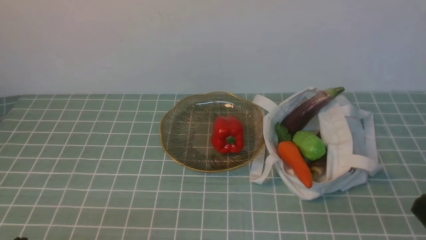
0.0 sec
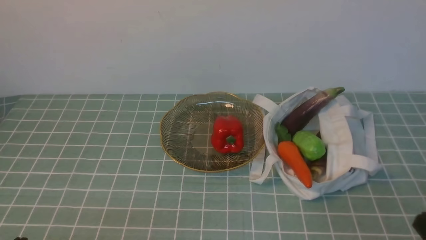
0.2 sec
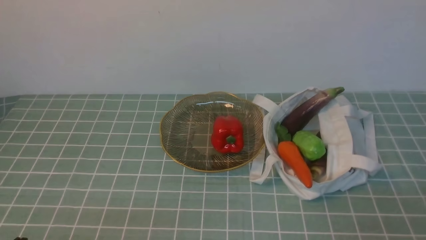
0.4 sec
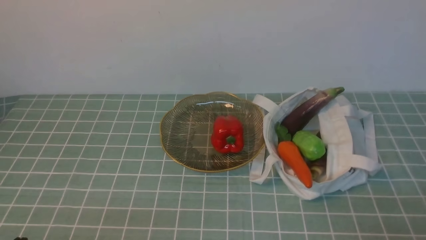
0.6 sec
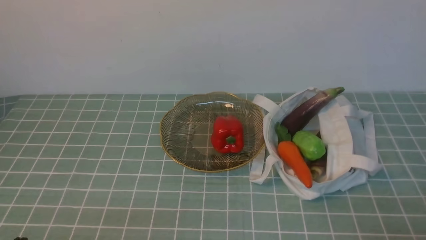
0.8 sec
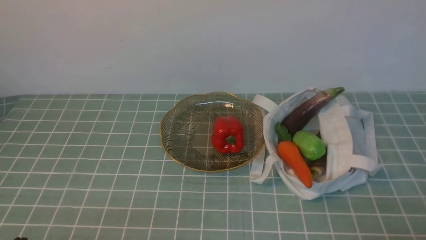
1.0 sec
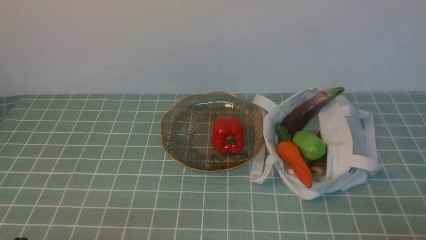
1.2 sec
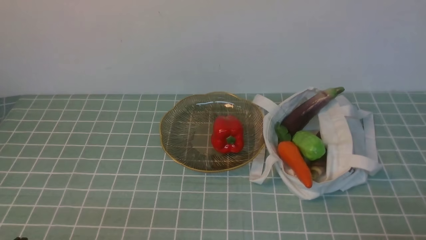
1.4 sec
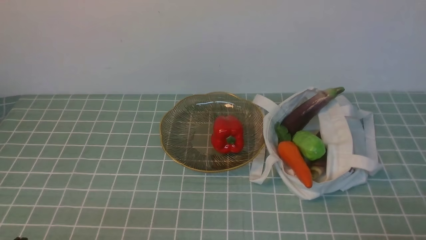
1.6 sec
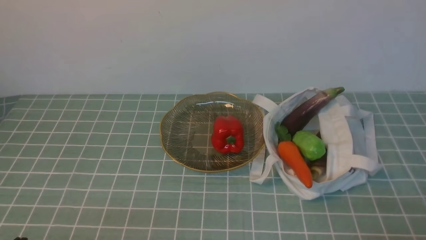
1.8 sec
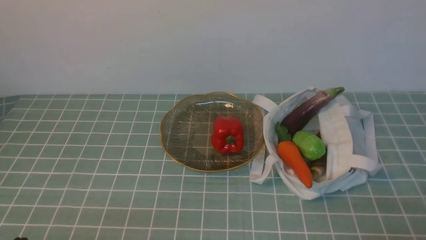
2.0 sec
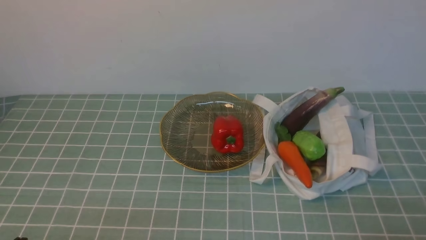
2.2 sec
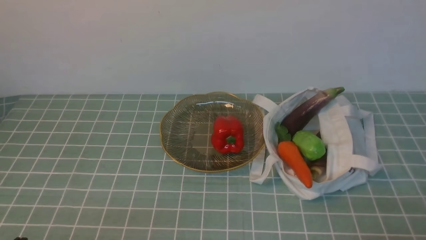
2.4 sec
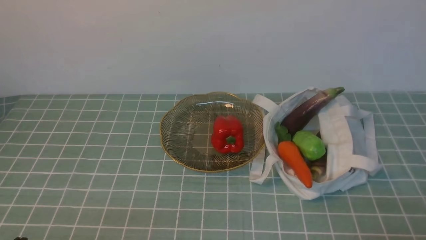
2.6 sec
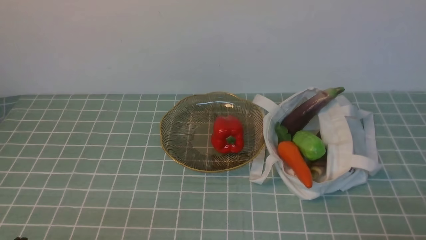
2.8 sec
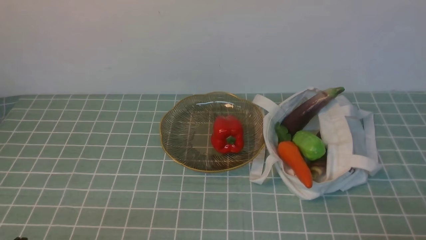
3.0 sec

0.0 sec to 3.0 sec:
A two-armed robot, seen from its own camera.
Task of the whole recording: take vegetables from cloth bag on blue coffee tablecloth place on plate.
1.6 sec to 3.0 sec: Both grippers stay about where they are.
